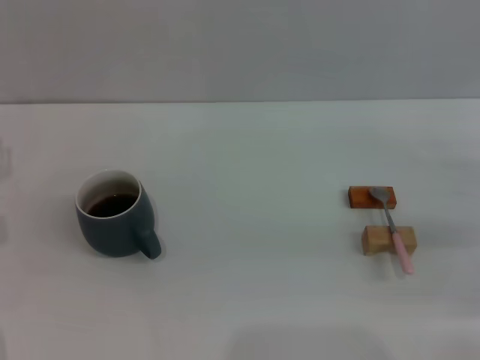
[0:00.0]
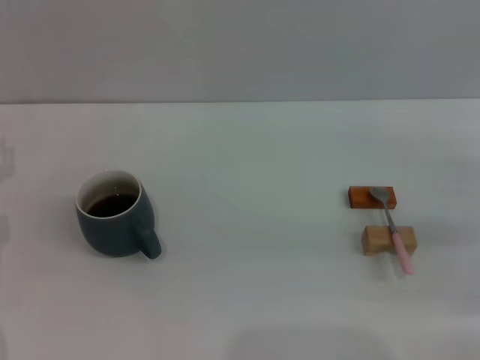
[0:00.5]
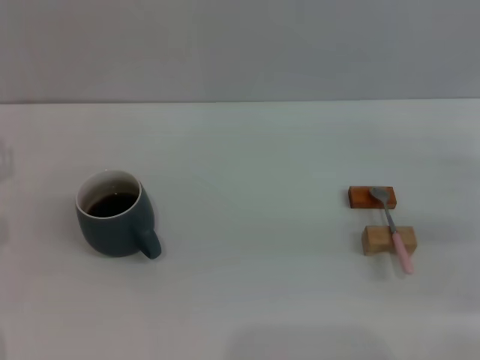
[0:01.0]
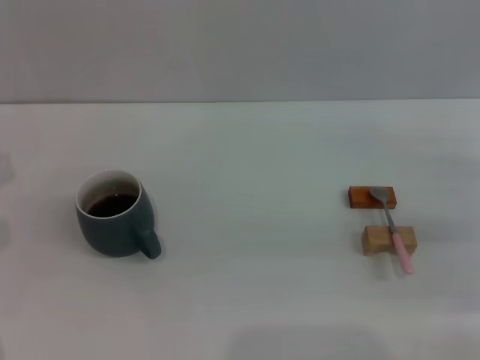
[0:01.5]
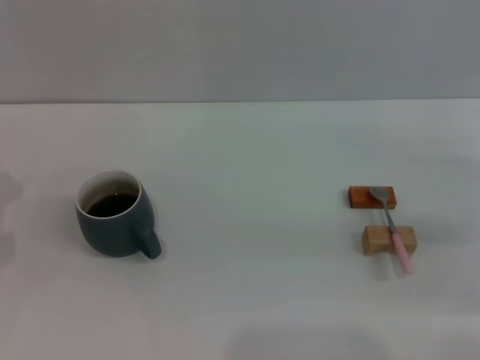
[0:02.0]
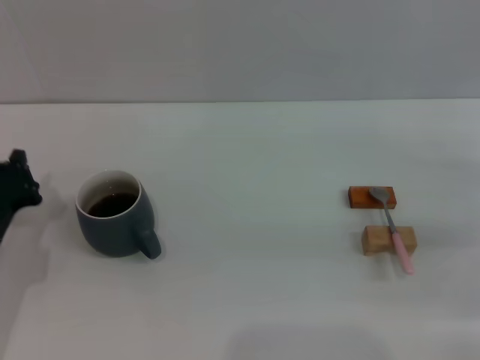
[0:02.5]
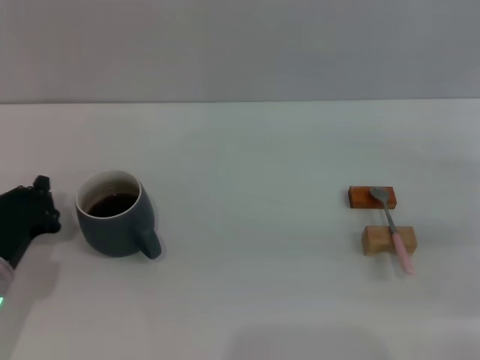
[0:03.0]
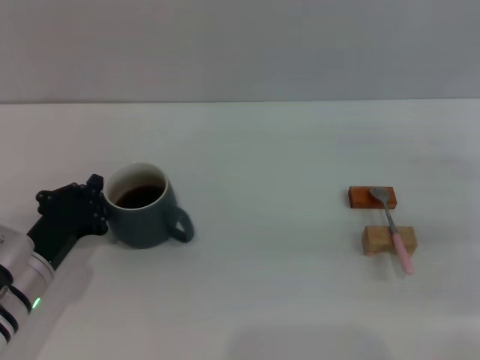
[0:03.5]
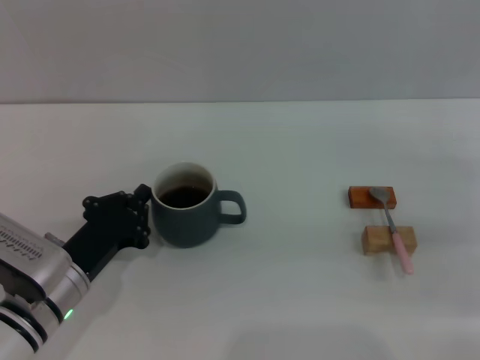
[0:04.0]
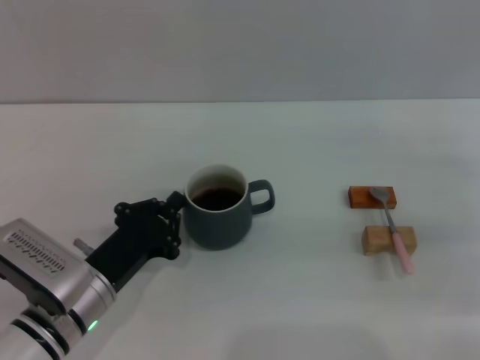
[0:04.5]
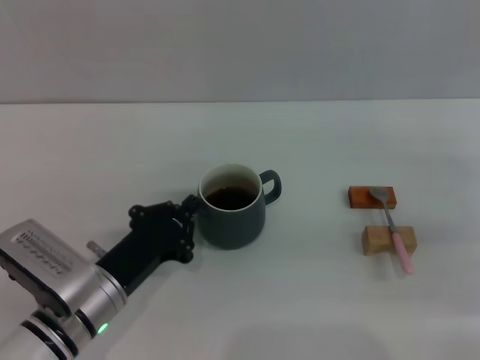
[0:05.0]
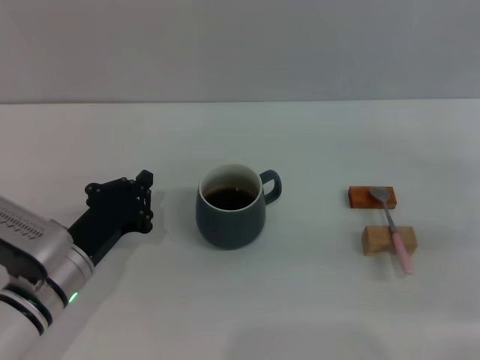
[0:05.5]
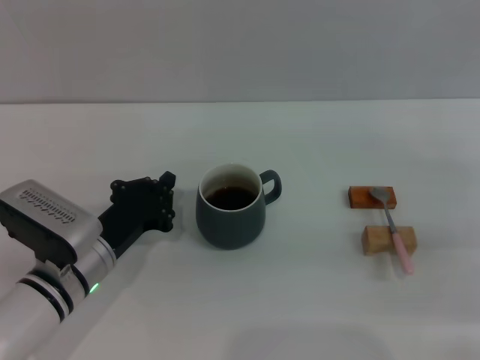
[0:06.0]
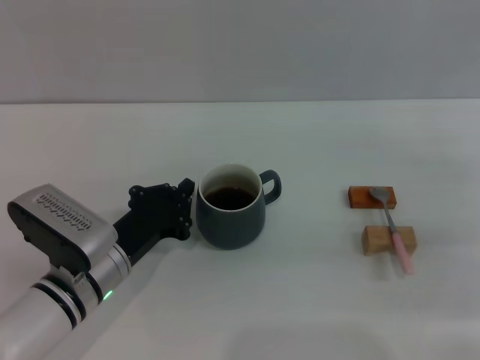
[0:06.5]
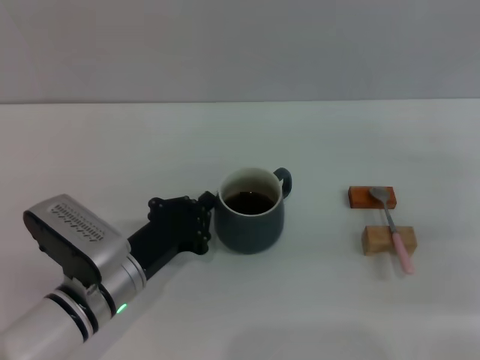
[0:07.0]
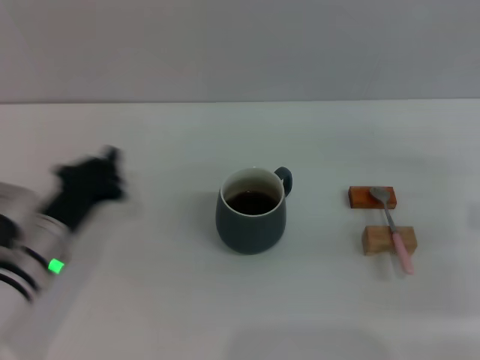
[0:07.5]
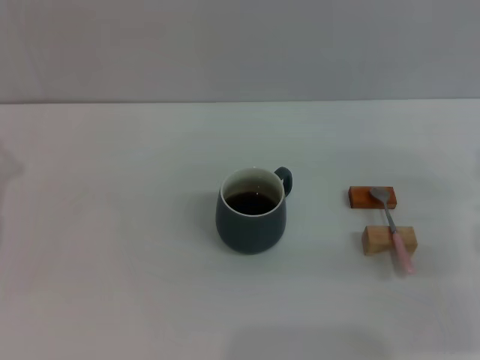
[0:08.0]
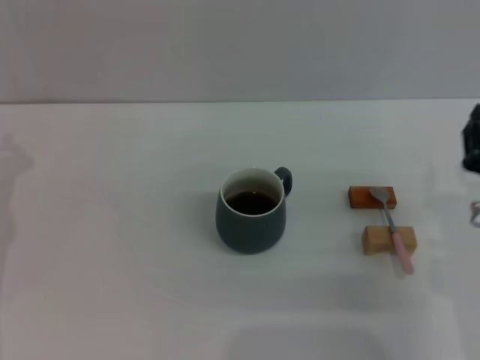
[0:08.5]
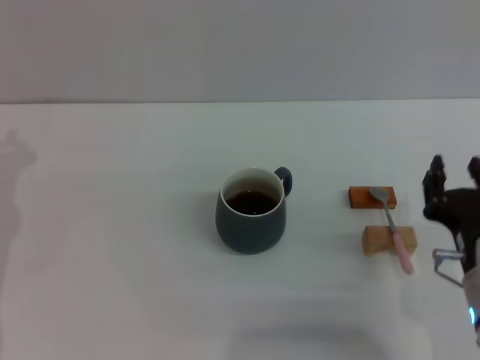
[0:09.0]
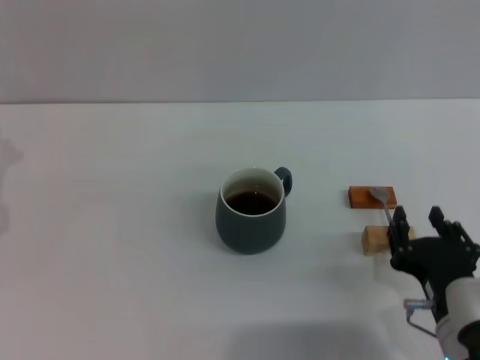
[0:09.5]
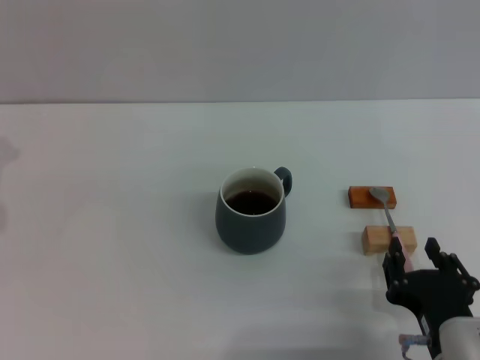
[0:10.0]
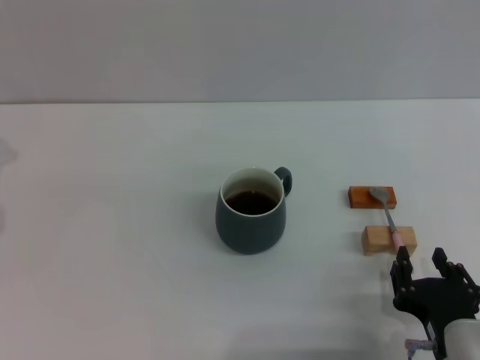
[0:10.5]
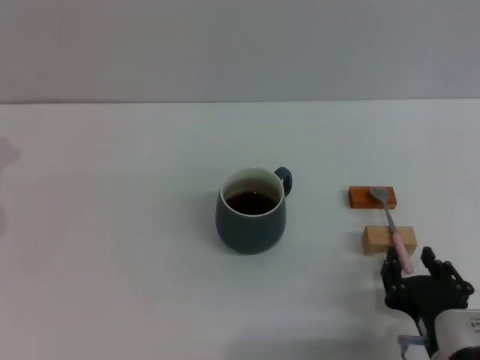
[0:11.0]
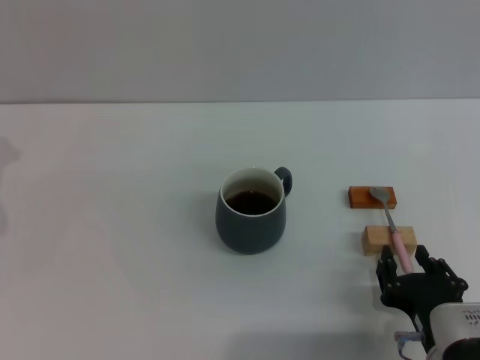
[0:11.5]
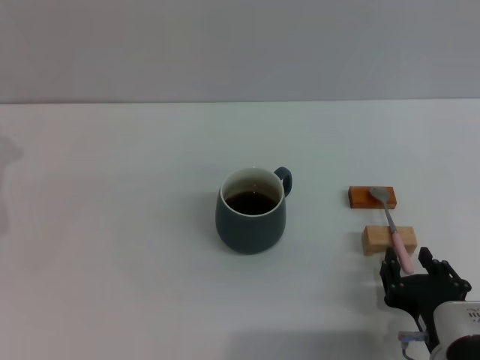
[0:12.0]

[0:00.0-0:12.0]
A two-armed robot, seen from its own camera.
Task of the whole recording: Move the grey cup to the center, lift the pink spoon, stir it three times in the cup, and put the spoon into the cup.
Step, 0:00.0 to 0:07.0: Move the cup with coffee to the center of view with the left gripper.
0:02.0 to 0:04.0: The left gripper travels to the right by about 10 cm.
0:04.0 to 0:06.0: The grippers stay close to where they were, moving slightly.
0:06.0 to 0:08.0: The left gripper shifts some 10 cm to the left.
0:08.0 to 0:10.0: The right gripper goes roughly 20 cm backward and to the left.
0:10.0 to 0:12.0: The grippers stay close to where they were, moving slightly.

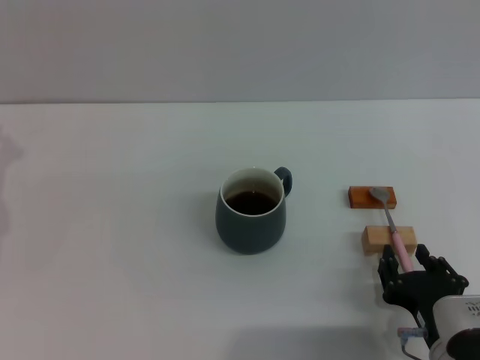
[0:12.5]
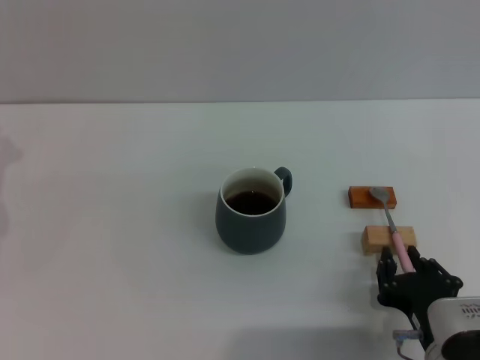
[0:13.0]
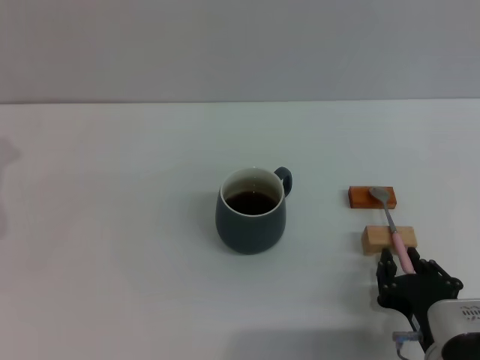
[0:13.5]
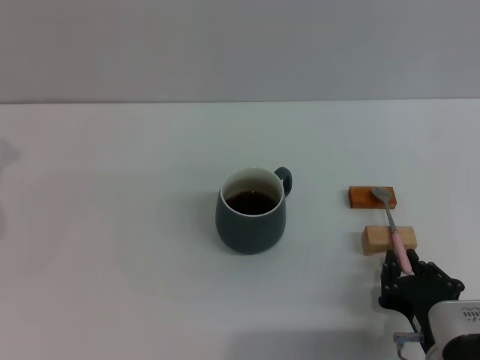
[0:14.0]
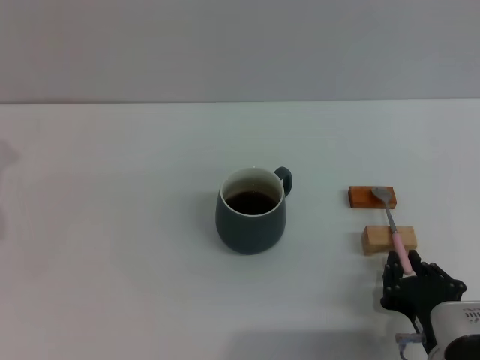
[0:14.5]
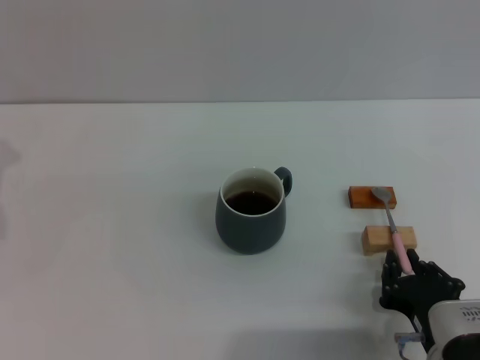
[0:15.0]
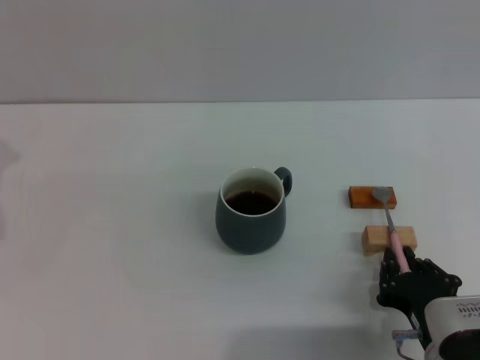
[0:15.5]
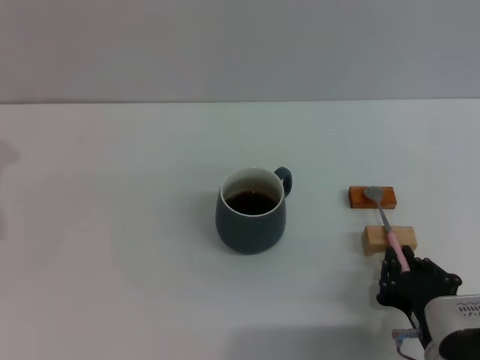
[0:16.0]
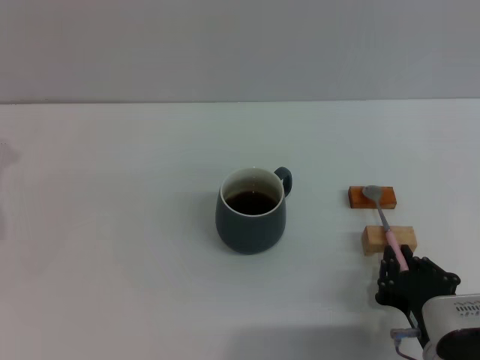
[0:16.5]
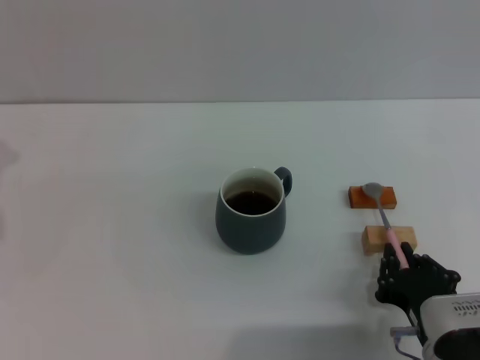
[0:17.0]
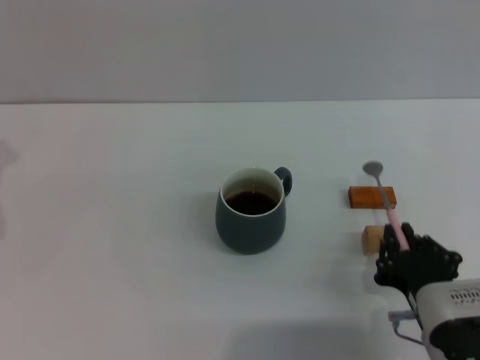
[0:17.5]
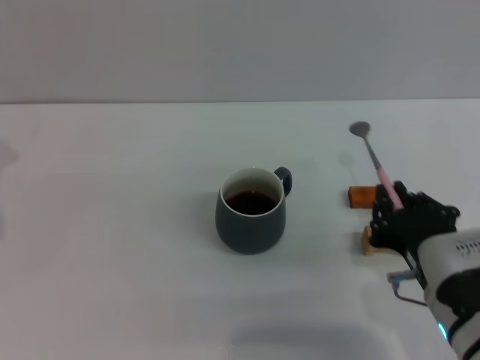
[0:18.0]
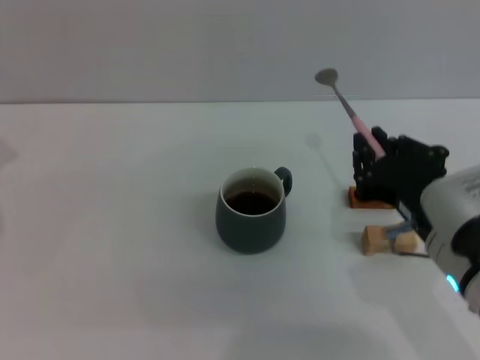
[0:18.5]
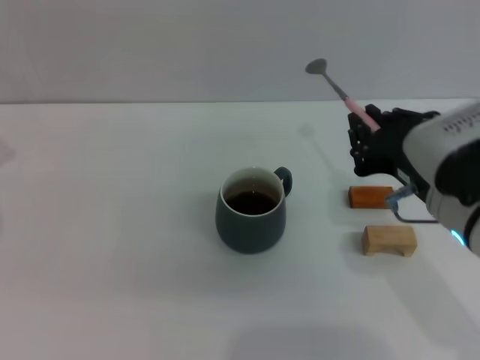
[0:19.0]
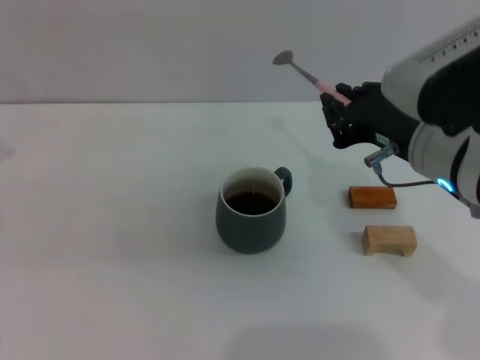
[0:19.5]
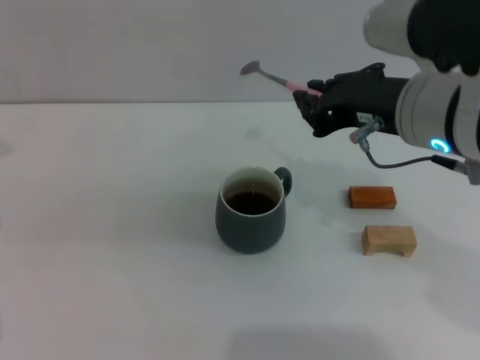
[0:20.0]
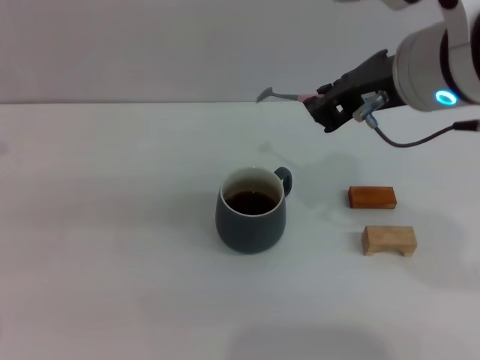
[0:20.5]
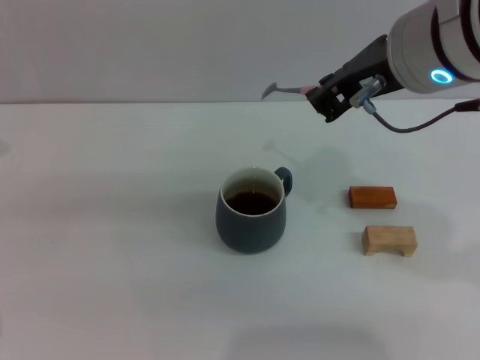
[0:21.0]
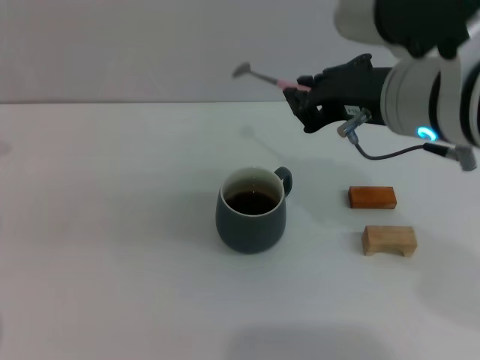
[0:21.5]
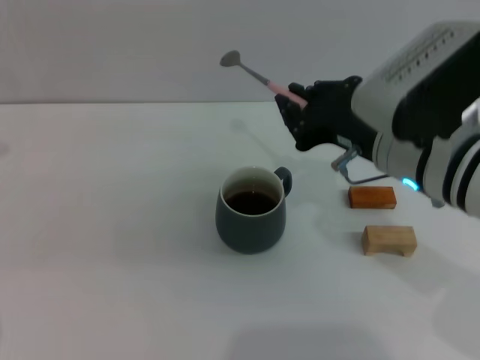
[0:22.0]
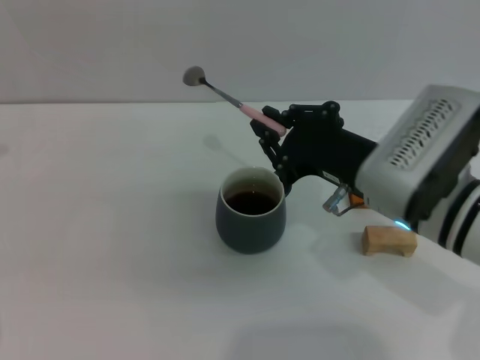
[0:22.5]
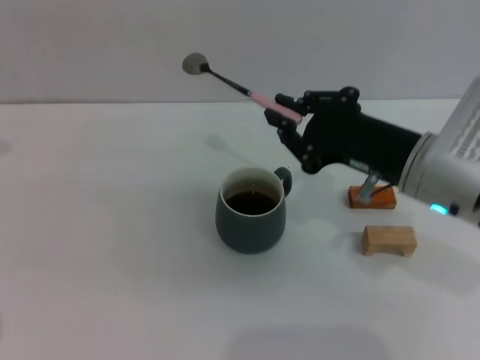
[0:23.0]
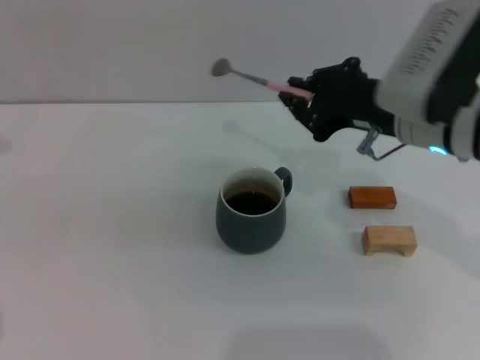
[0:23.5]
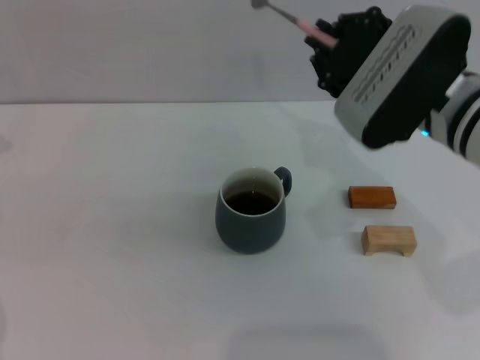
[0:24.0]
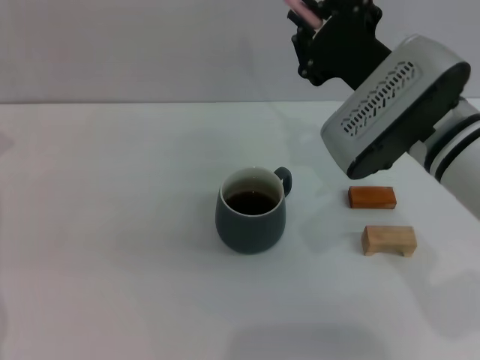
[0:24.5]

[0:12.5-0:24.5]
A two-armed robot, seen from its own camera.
Task of the whole recording: Move the grey cup to the center, lift the pink spoon, stir it three times in the cup, and put the spoon into the cup.
Step, 0:12.5 to 0:17.5: Pick up the spoon with the right gripper.
0:12.5 to 0:14.5: The right gripper closes.
0:14.5 to 0:16.5: The two grippers keep their place.
0:16.5 to 0:18.5: The right gripper goes approximately 10 cm upward.
0:18.5 to 0:20.5: The right gripper is displaced upward and forward by some 15 cm.
0:20.5 to 0:22.5: The right gripper is displaced downward by some 15 cm.
0:22.5 to 0:24.5: The right gripper ends up roughly 5 cm from where it was.

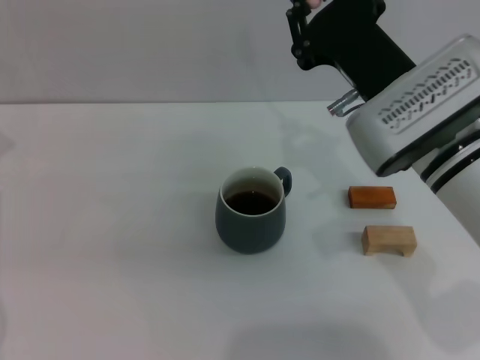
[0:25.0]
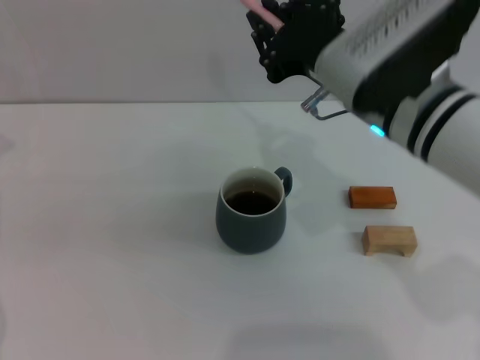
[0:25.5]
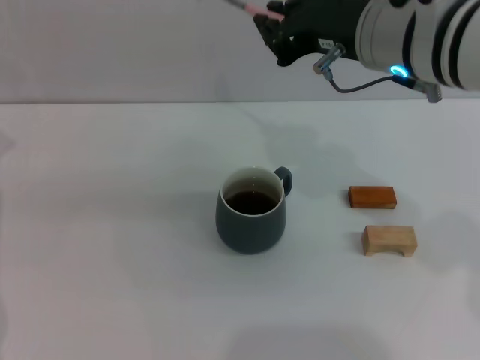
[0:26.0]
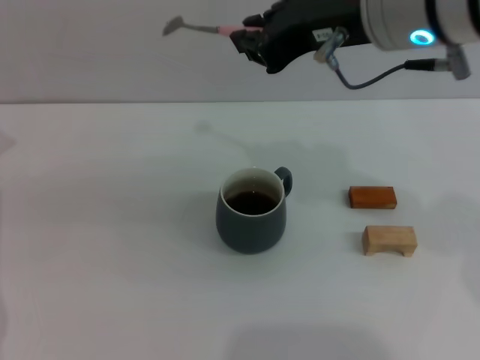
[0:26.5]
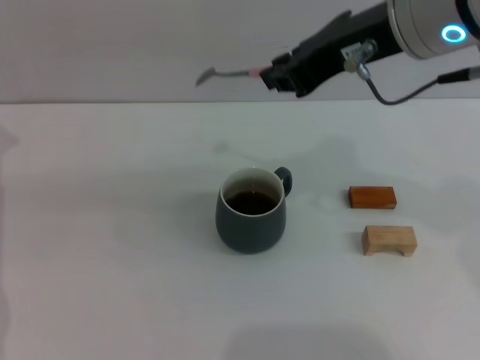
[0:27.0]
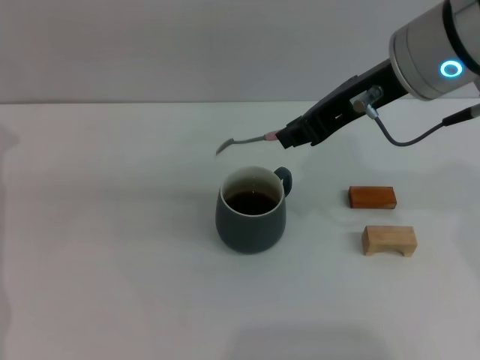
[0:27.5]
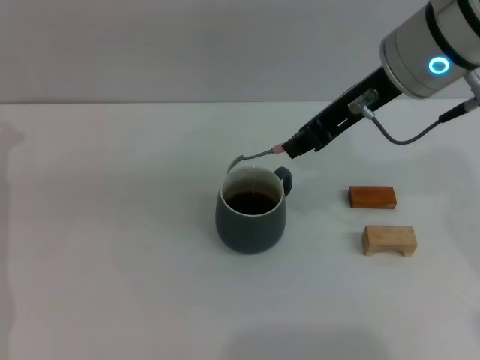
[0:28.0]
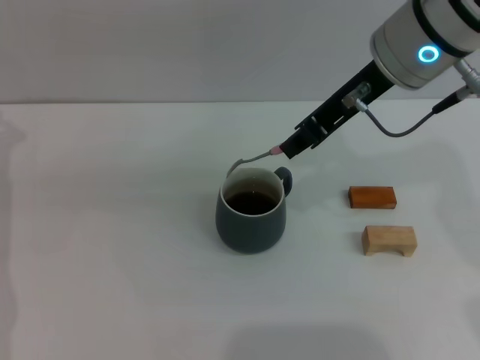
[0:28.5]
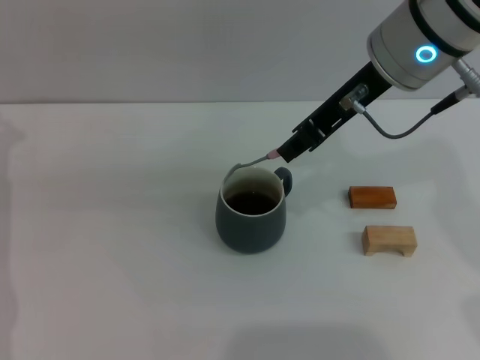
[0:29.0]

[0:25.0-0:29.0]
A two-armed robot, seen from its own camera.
Task of the whole recording: Move the grey cup to the center, lift the pink spoon, stir it three times in the cup, and put the spoon into the cup.
0:25.0 to 0:27.0: The right gripper travels upward by about 15 cm.
0:27.0 to 0:29.0: The right gripper moves roughly 5 cm.
